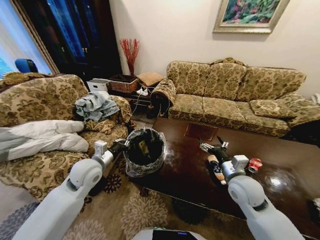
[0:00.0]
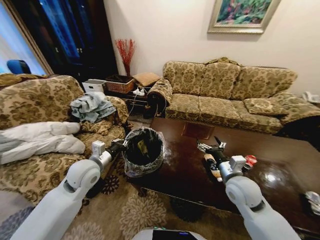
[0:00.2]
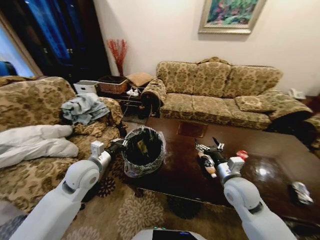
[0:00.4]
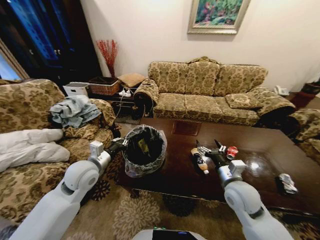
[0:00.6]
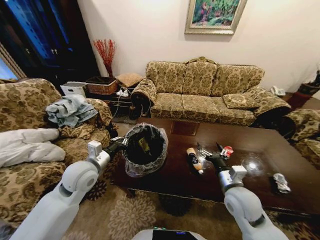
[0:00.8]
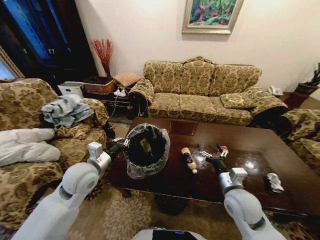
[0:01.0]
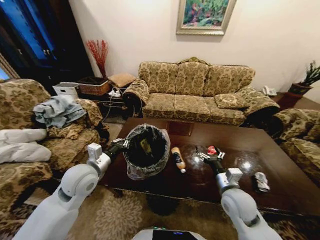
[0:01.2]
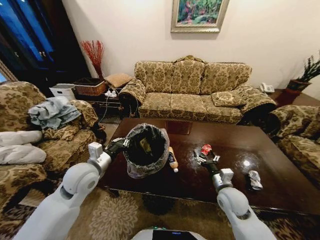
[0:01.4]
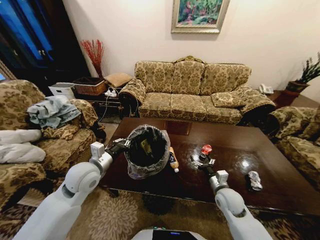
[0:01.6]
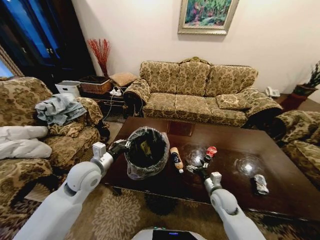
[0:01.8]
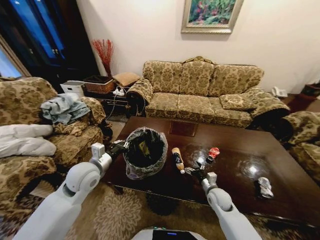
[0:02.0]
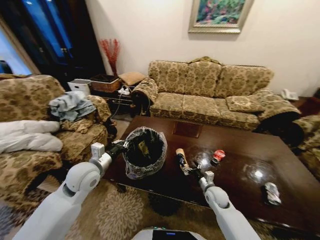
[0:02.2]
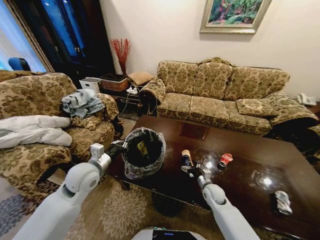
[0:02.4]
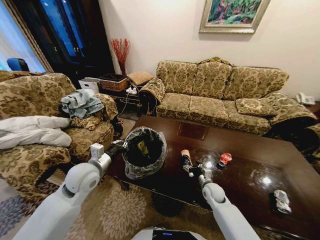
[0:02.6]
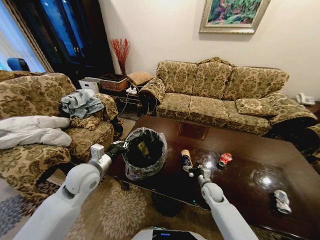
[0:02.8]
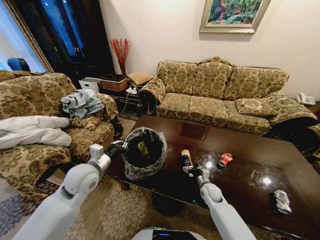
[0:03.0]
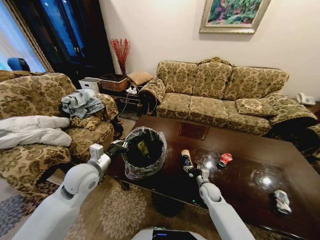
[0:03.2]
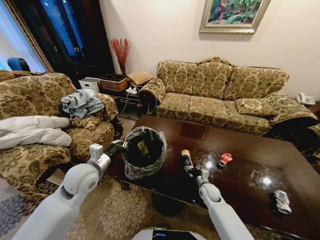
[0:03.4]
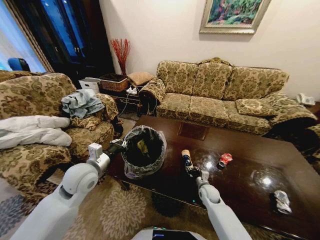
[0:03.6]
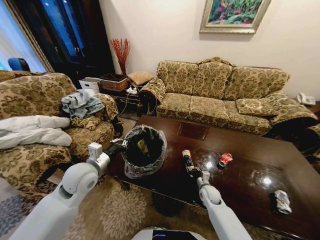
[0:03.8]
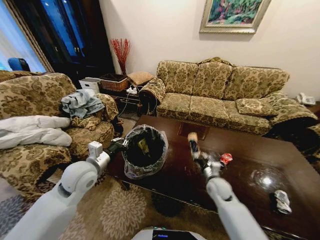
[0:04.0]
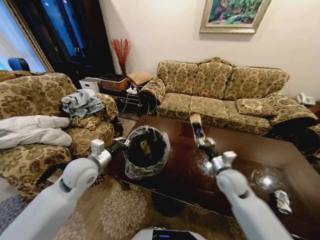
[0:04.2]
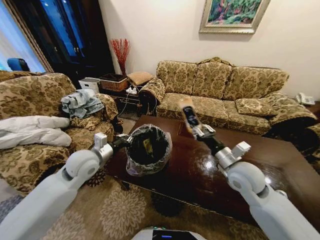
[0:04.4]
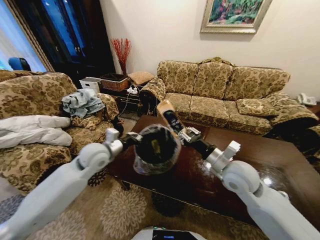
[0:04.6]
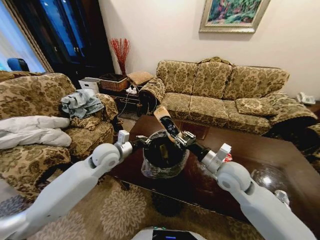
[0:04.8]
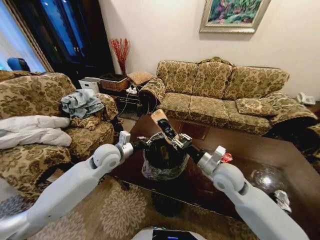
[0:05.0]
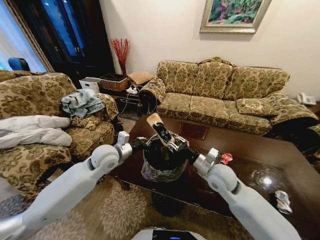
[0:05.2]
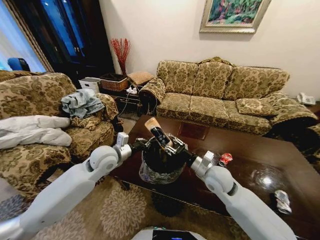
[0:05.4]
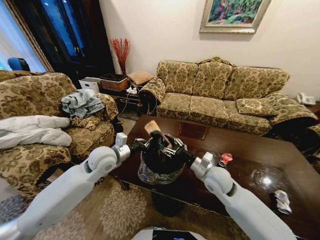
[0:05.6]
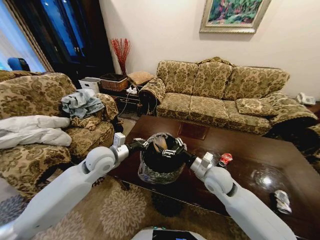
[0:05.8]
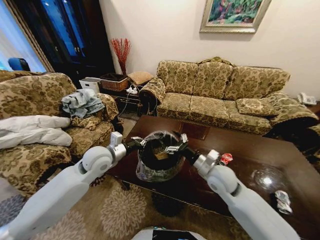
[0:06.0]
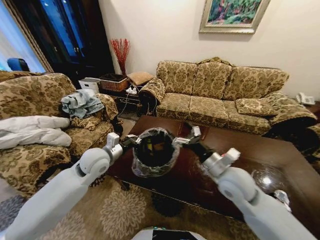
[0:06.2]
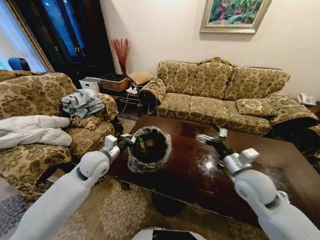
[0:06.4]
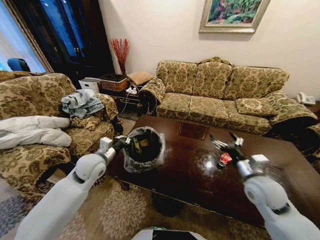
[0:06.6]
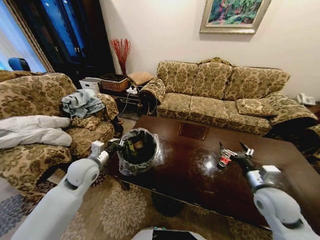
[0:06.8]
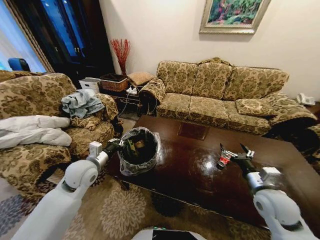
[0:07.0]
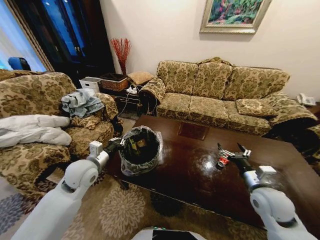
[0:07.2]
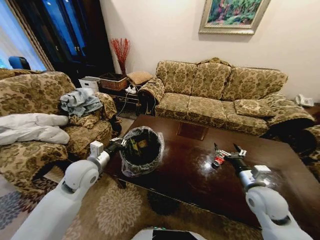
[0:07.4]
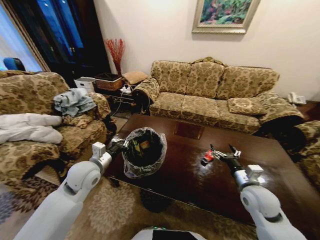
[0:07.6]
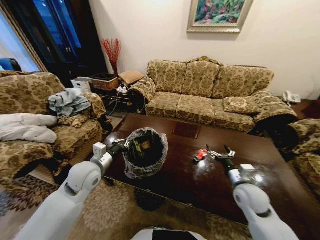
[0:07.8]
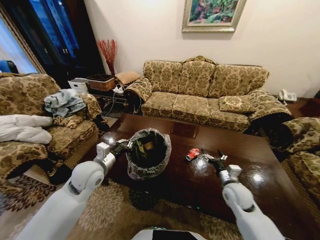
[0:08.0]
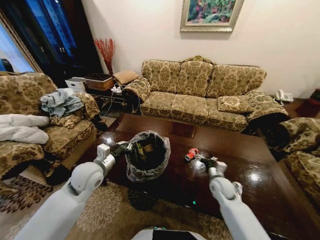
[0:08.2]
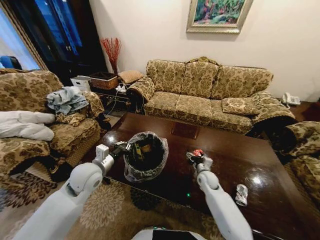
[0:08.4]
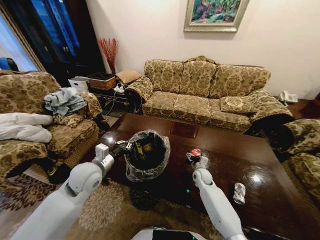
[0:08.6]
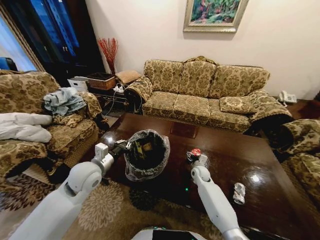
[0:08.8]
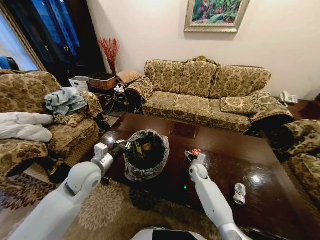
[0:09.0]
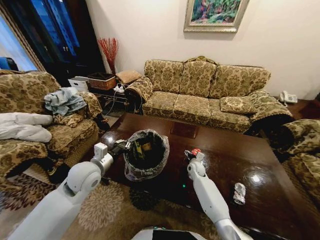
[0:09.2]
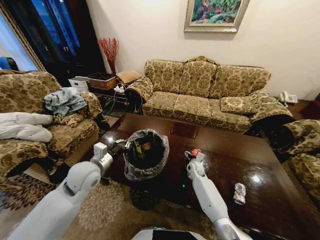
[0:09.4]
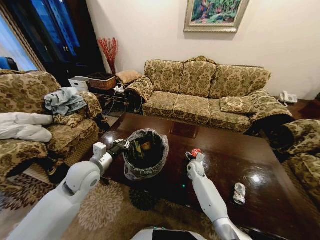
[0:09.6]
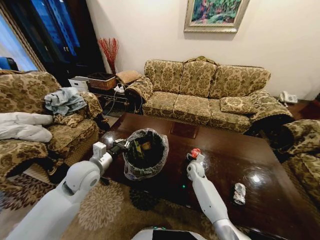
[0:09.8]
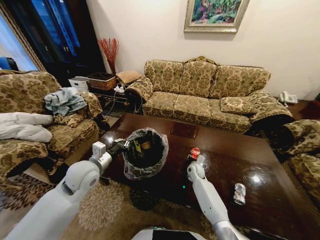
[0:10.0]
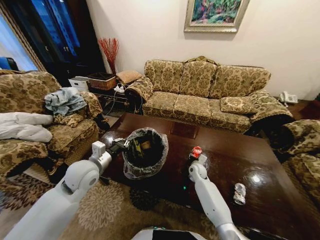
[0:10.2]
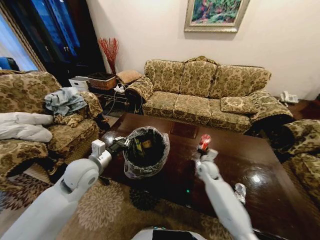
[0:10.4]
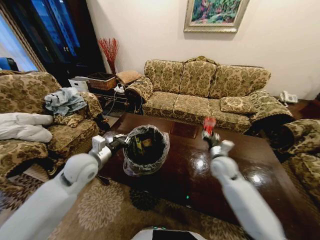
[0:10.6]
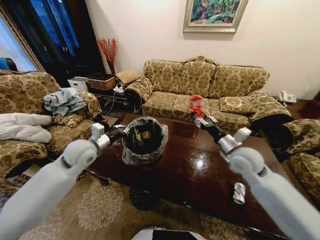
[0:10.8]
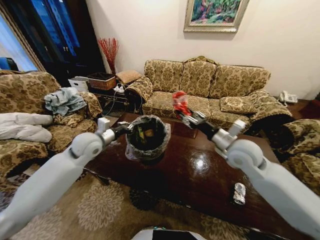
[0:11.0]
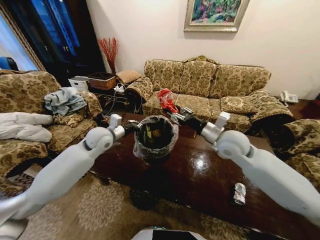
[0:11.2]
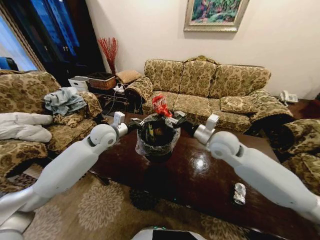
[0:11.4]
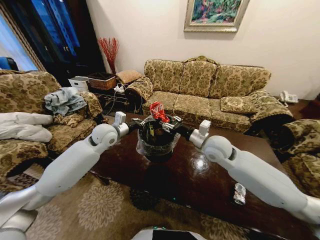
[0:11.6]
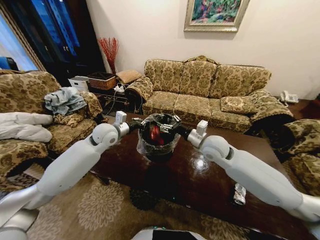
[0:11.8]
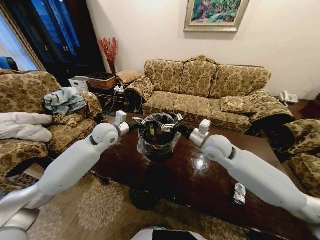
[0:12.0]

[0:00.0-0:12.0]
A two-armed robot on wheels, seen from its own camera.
Task of the whole recording: Move to the front of the table and place the trash on the table into the trash bin.
0:00.0 to 0:01.6: The right gripper shifts about 10 cm downward.
0:01.6 to 0:03.0: The right gripper shifts about 10 cm downward and forward.
0:03.0 to 0:04.4: The right gripper travels upward by roughly 30 cm, and closes its fingers; the left gripper changes place by about 5 cm.
0:04.4 to 0:06.0: The right gripper heads downward, covering roughly 5 cm, and opens up.
0:06.0 to 0:07.6: The left gripper shifts by about 5 cm, while the right gripper is displaced to the right and backward by approximately 15 cm.
0:07.6 to 0:09.0: The right gripper is displaced forward, downward and to the left by about 30 cm.
0:09.0 to 0:10.4: The right gripper shifts about 5 cm upward, and closes its fingers.
0:10.4 to 0:12.0: The right gripper goes approximately 25 cm upward, and opens its fingers; the left gripper moves forward, approximately 15 cm.

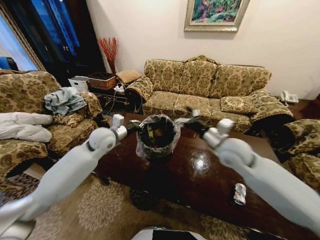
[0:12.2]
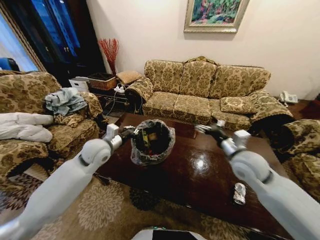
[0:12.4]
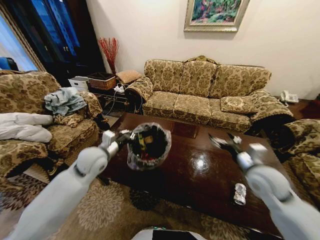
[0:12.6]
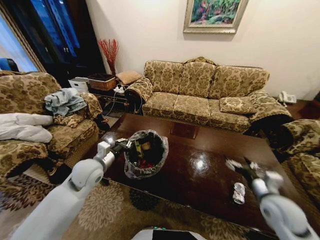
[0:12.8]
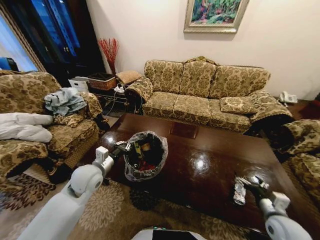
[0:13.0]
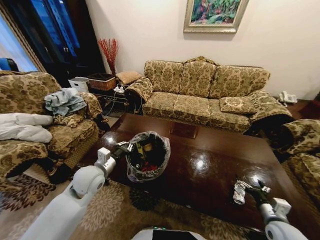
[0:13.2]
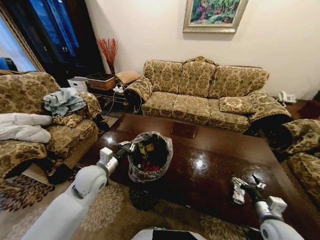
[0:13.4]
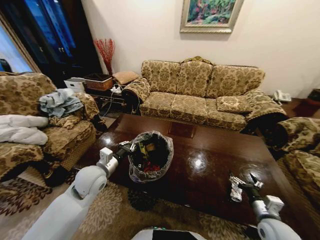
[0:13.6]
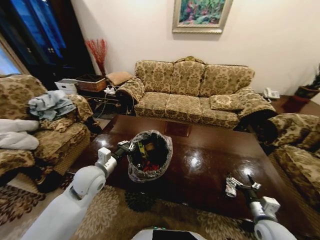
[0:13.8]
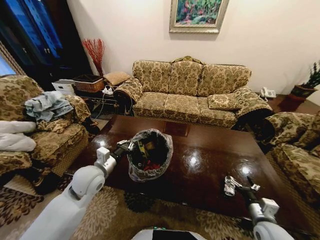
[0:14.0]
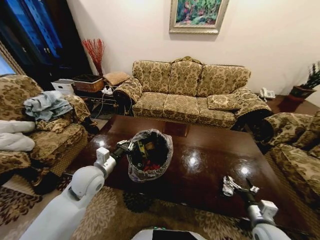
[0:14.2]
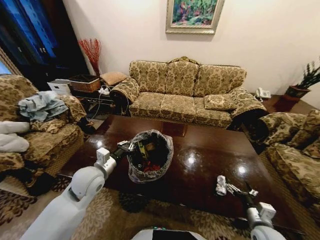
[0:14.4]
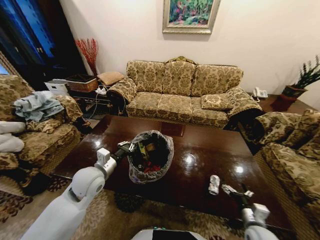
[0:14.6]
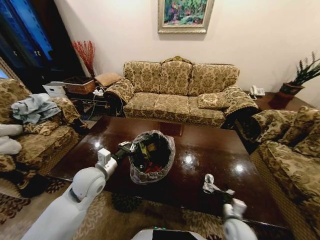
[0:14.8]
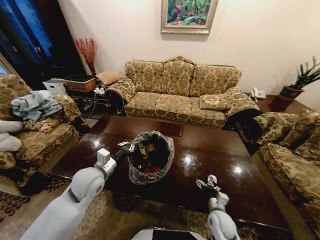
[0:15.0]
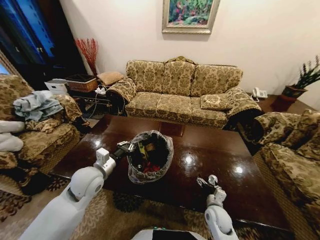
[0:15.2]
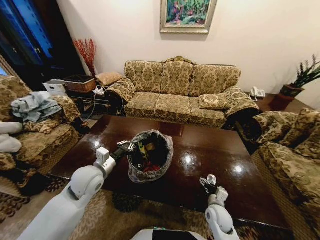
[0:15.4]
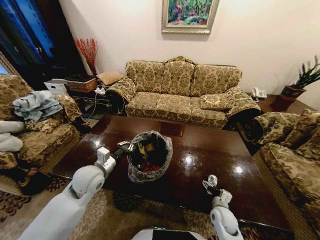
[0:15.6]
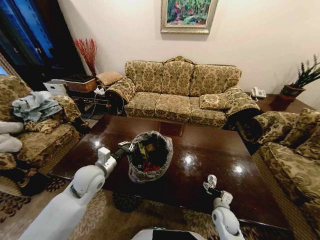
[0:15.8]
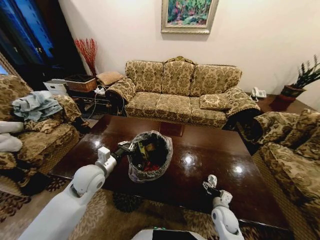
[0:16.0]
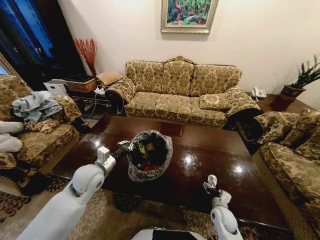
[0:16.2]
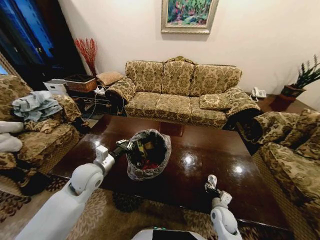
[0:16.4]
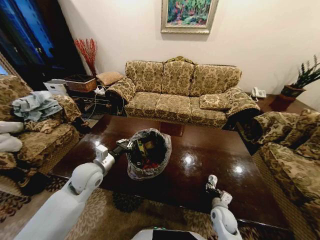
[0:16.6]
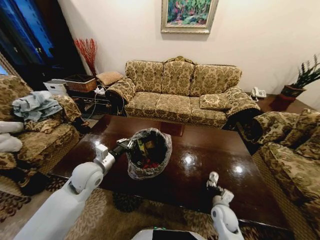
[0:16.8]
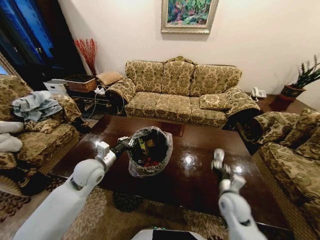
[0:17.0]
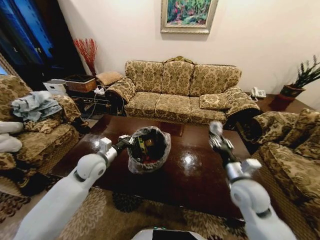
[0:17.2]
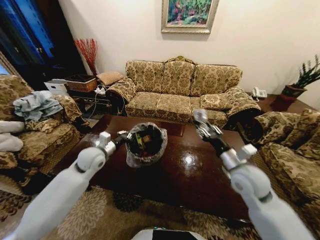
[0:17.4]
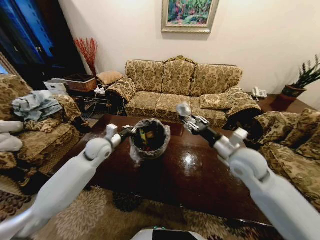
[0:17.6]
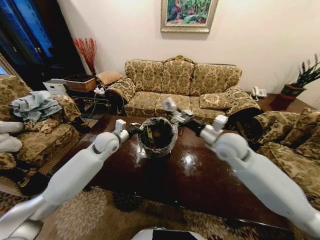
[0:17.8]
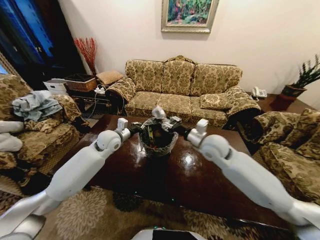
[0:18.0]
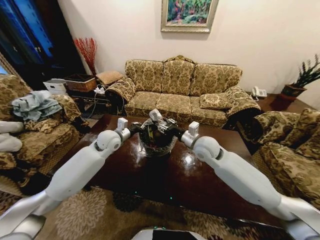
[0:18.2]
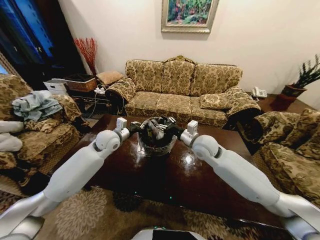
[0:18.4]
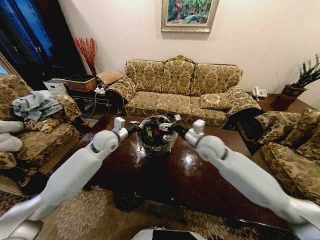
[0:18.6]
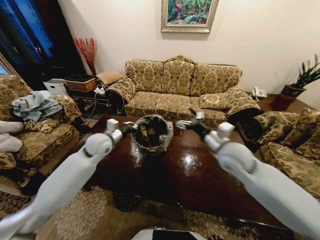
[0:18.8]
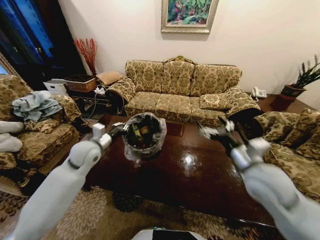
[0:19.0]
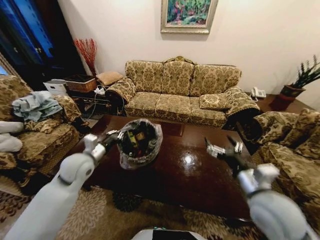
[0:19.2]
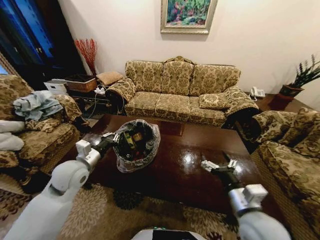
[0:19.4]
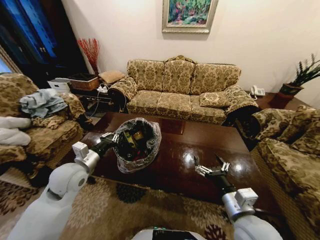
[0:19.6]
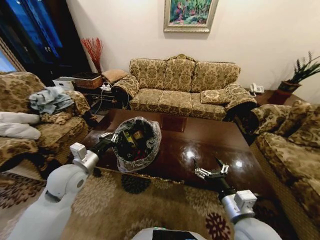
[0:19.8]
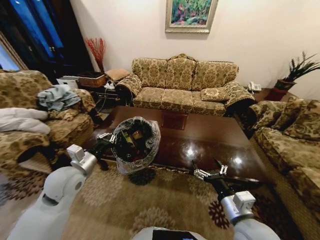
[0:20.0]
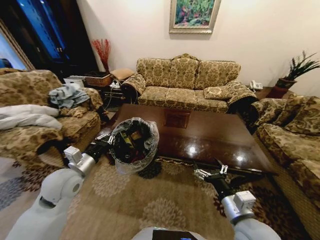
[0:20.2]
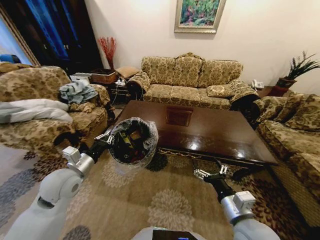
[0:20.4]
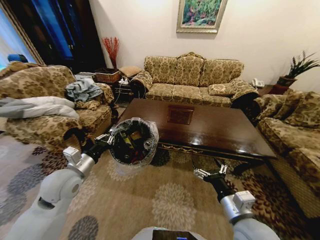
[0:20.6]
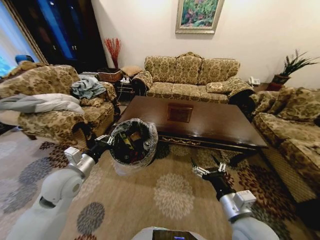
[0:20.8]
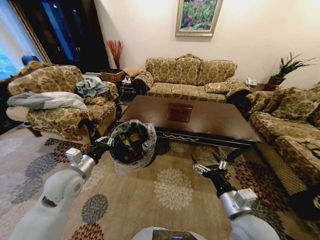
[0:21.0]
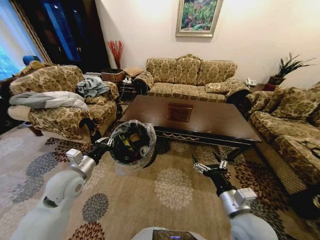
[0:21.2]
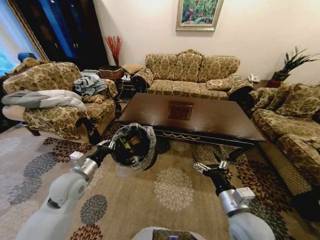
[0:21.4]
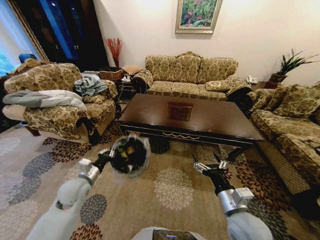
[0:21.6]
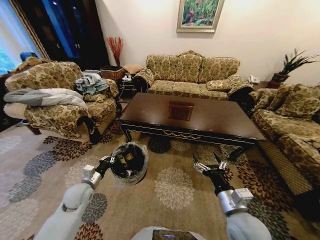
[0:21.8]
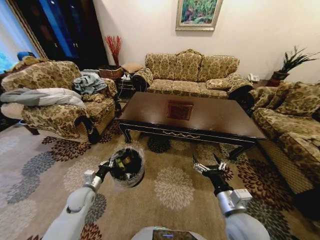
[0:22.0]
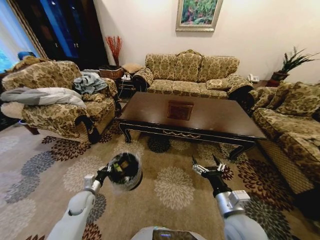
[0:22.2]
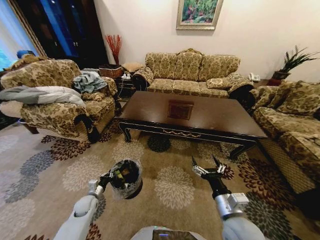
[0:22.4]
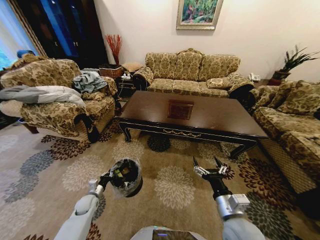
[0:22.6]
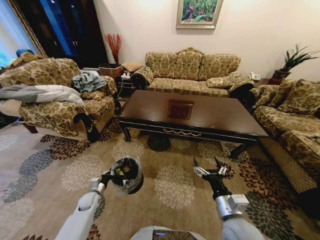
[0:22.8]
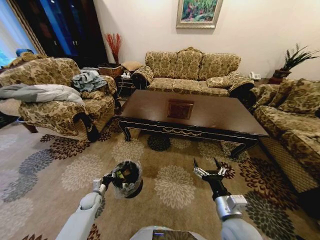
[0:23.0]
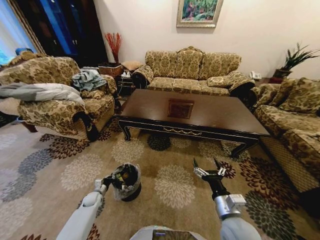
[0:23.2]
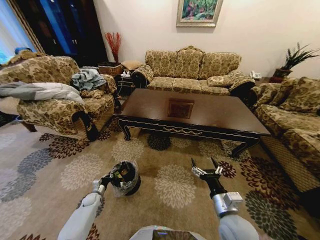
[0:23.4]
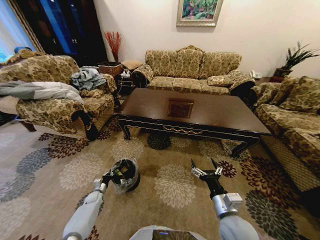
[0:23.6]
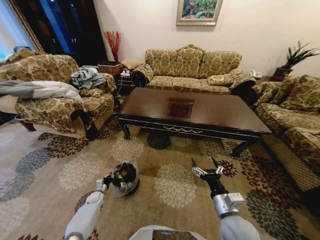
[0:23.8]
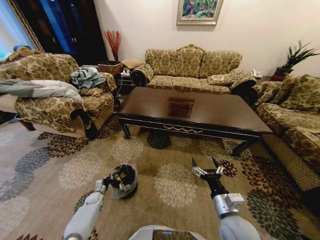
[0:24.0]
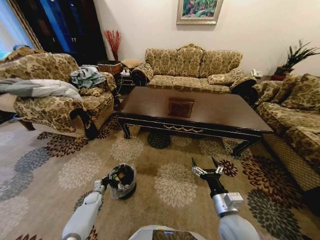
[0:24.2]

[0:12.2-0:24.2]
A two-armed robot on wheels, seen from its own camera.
Task of the whole recording: Move to the front of the table and place the trash on the table into the trash bin.
0:12.2 to 0:13.8: The right gripper travels downward, backward and to the right by about 35 cm; the left gripper is displaced backward and downward by approximately 15 cm.
0:13.8 to 0:15.2: The right gripper is displaced to the left, downward and forward by some 20 cm.
0:15.2 to 0:16.6: The right gripper closes.
0:16.6 to 0:18.2: The left gripper moves forward, approximately 15 cm; the right gripper moves upward and forward, roughly 35 cm.
0:18.2 to 0:19.8: The left gripper heads backward and to the left, covering about 20 cm, while the right gripper goes roughly 25 cm backward, and opens.
0:21.2 to 0:22.6: The left gripper is displaced downward by roughly 30 cm.
0:22.6 to 0:24.2: The left gripper heads downward, covering roughly 10 cm.
